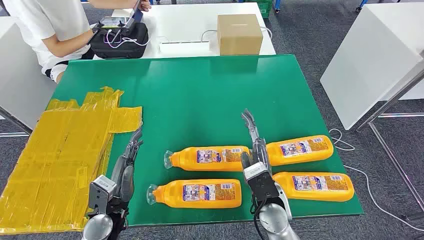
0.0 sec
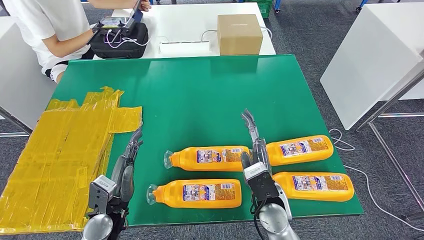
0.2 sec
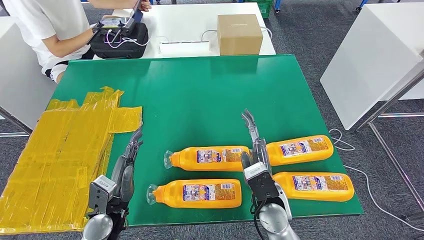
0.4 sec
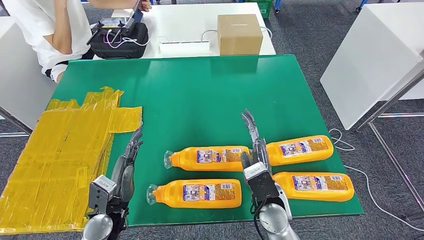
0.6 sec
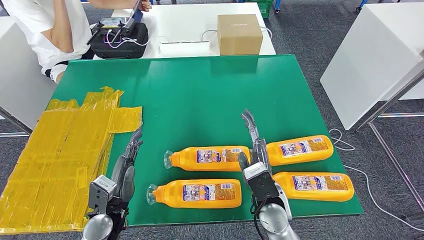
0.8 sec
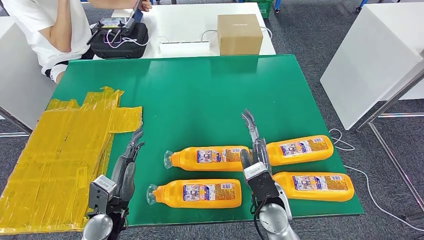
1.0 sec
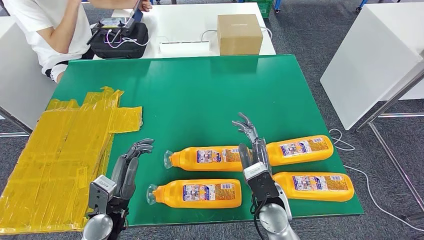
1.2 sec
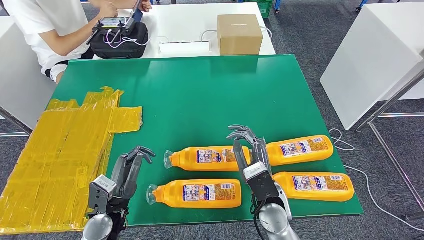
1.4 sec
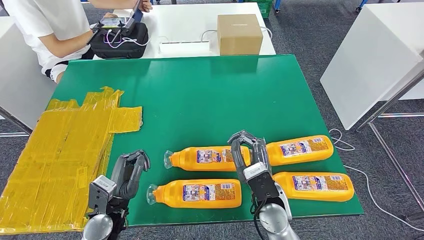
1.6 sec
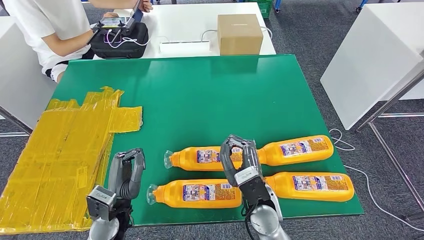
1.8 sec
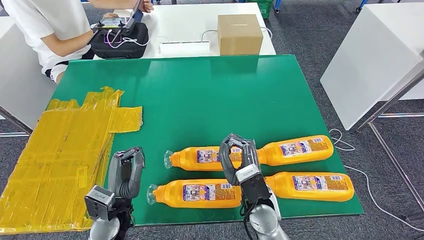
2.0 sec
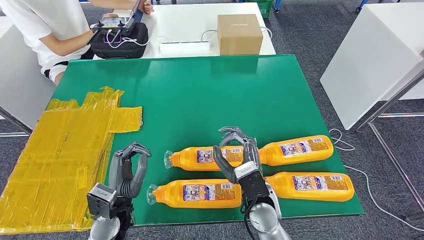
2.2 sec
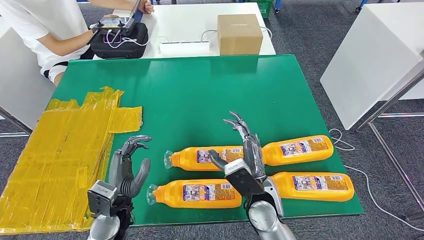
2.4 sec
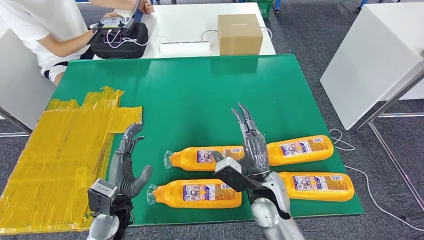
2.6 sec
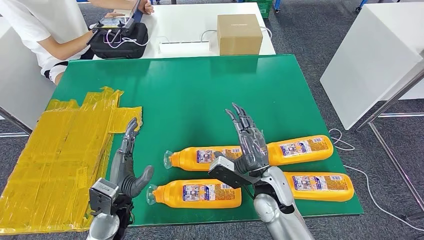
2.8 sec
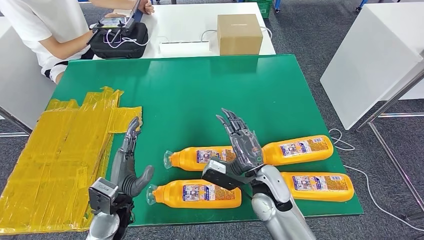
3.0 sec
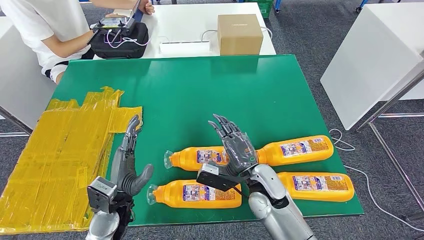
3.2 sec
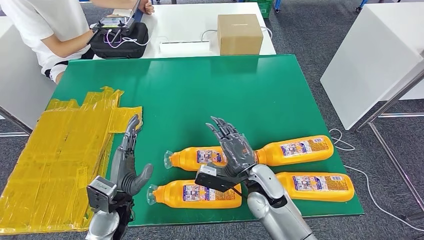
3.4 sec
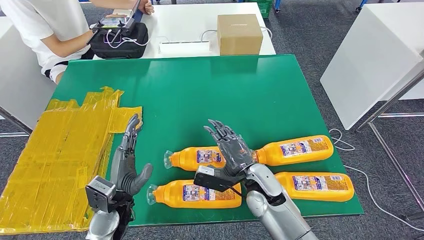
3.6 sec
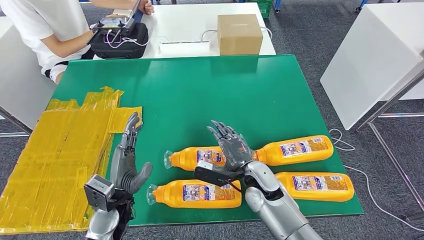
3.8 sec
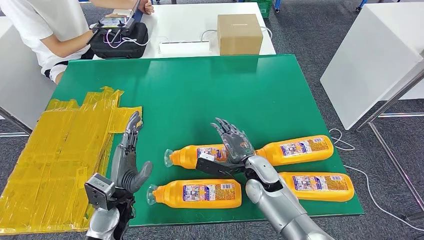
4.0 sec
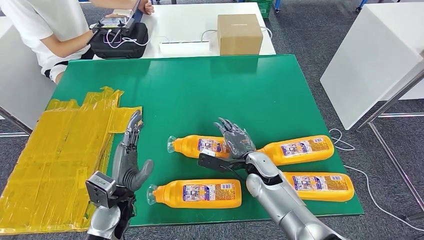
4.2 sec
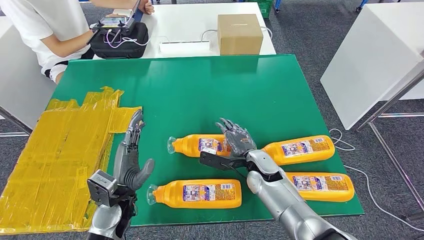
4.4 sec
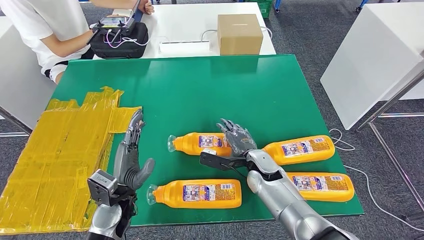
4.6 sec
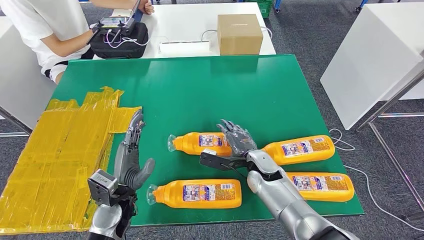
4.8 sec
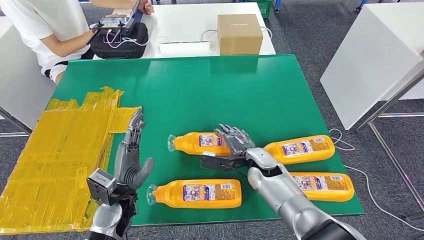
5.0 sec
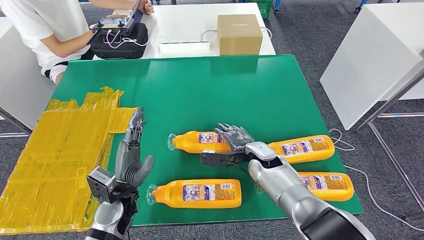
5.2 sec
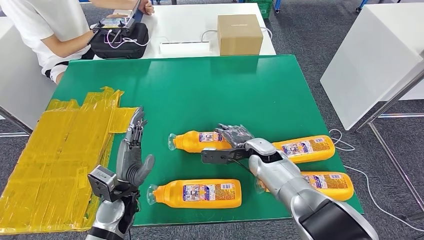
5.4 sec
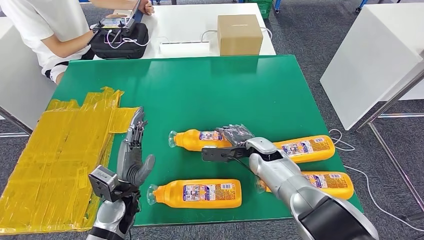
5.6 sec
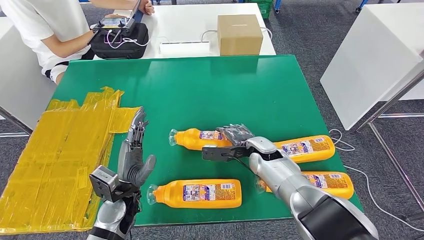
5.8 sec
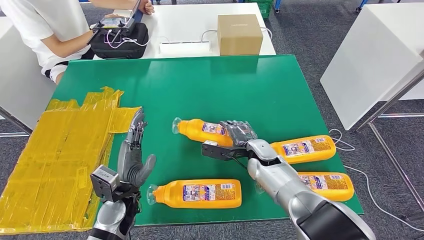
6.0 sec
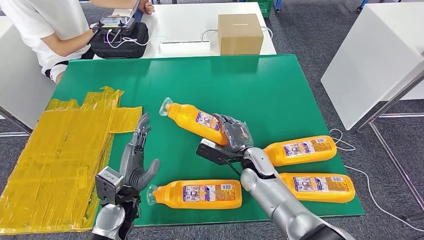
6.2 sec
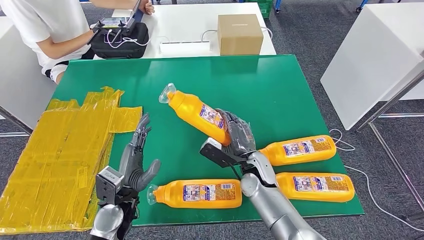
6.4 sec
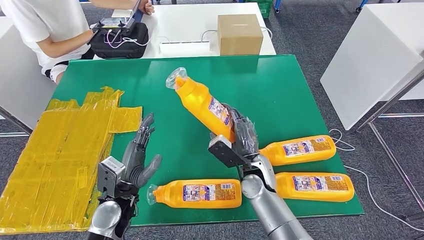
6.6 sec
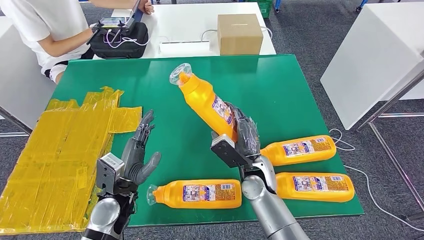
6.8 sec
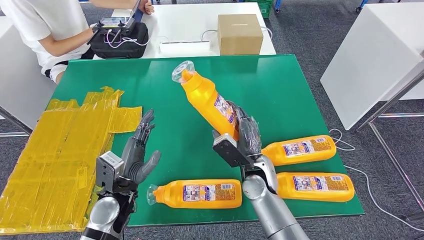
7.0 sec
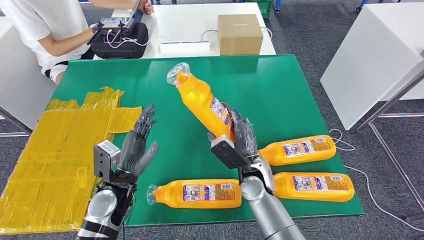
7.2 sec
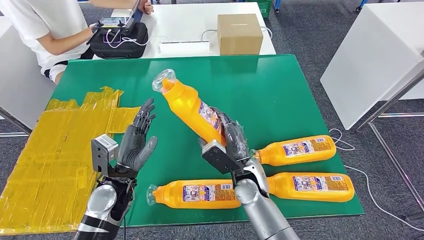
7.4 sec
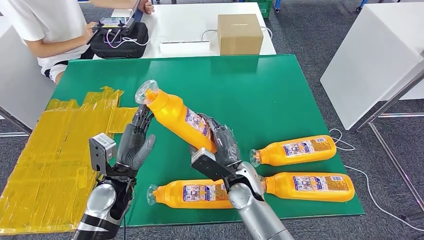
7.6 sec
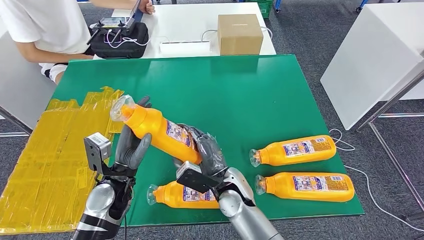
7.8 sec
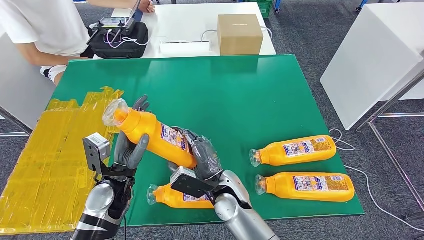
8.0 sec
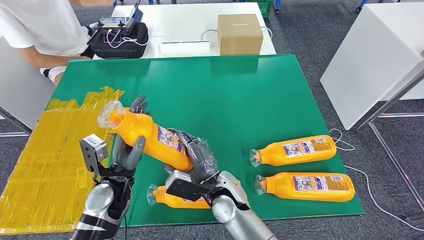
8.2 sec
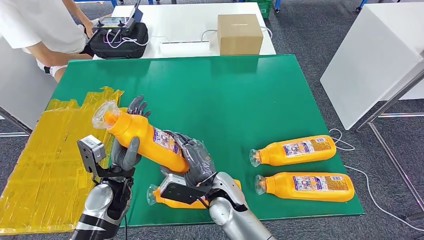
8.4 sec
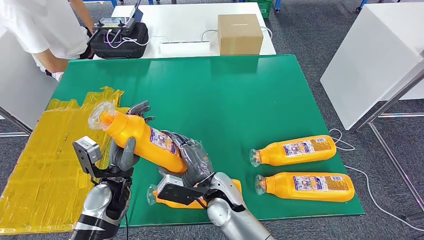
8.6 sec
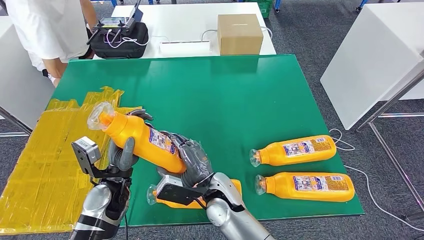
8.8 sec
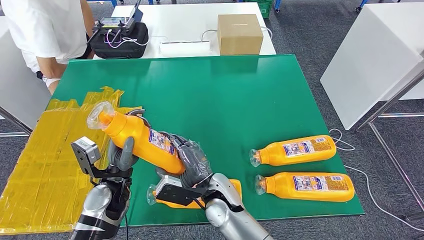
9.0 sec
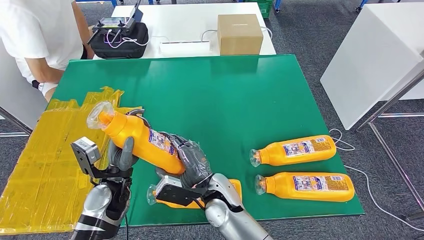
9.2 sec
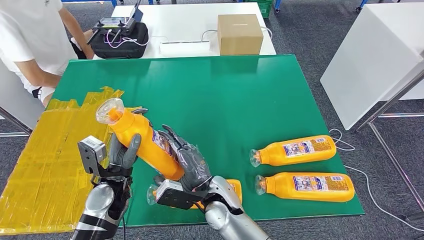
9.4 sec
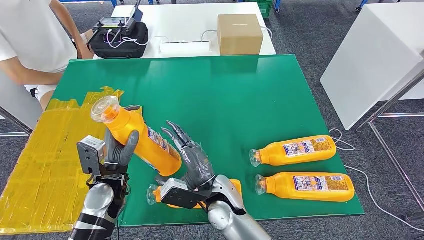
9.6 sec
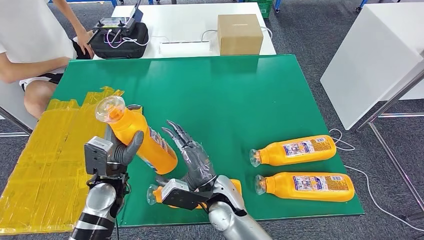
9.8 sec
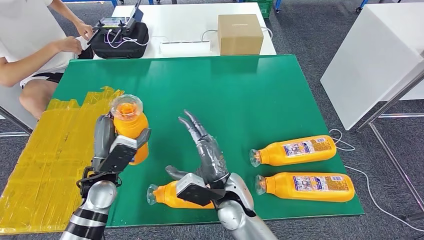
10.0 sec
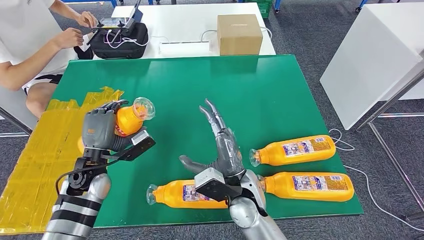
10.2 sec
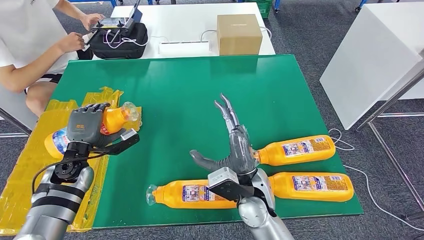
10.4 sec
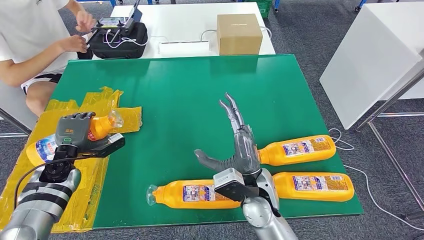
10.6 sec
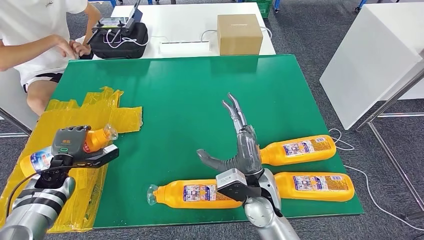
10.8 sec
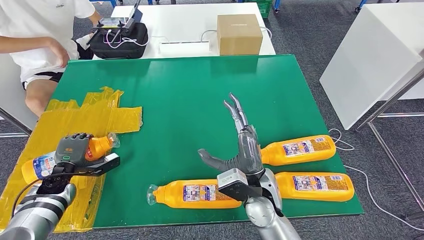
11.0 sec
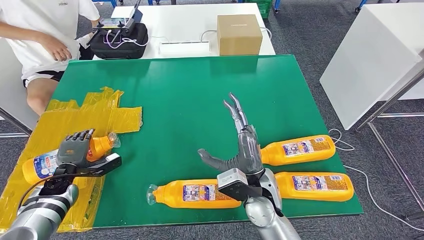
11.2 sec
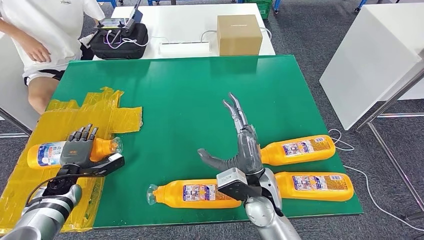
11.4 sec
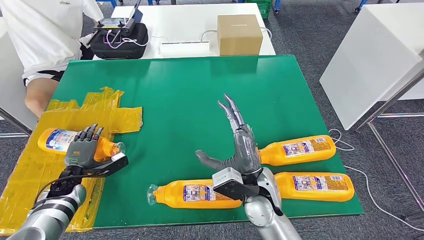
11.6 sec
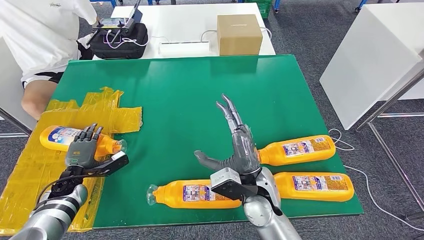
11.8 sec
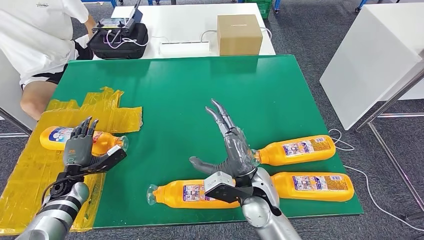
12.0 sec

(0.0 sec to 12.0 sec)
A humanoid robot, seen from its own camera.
Step, 0.0 sec - 8.2 sec: Take the bottle from the table.
3.0 sec - 4.4 sec: The right hand goes roughly 5 cm forward.
4.4 sec - 6.0 sec: The hands move only a little.
6.0 sec - 7.6 sec: The right hand is displaced backward and to the left by some 10 cm.
7.6 sec - 9.0 sec: The right hand heads to the left, covering about 5 cm.
10.4 sec - 12.0 sec: The left hand is displaced downward and to the left by roughly 10 cm.

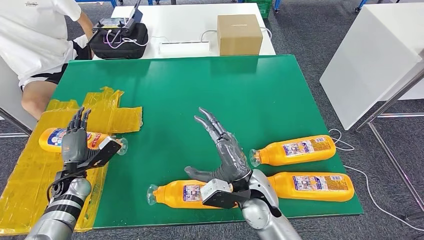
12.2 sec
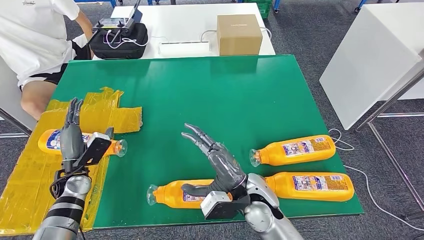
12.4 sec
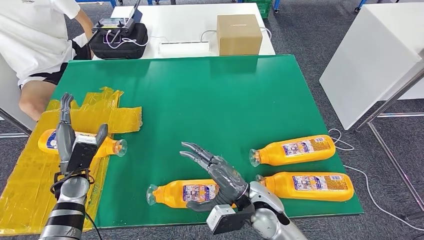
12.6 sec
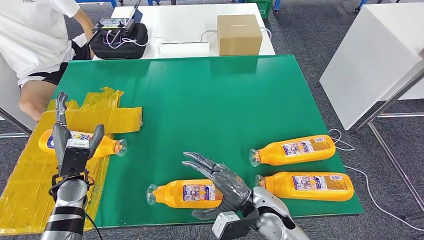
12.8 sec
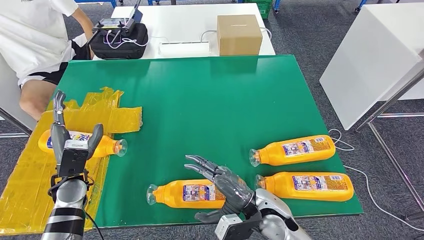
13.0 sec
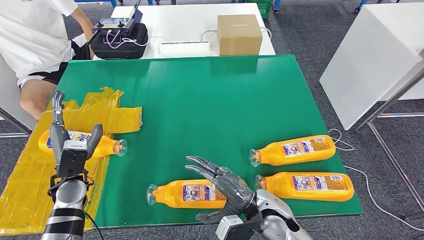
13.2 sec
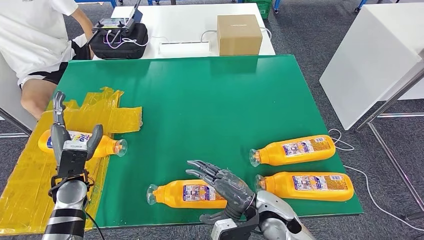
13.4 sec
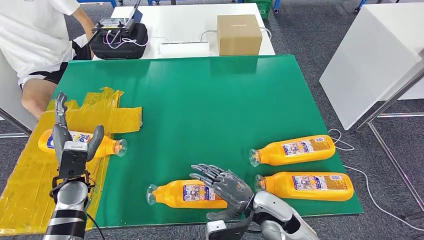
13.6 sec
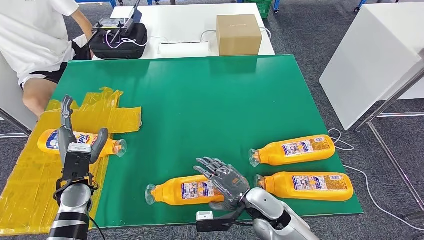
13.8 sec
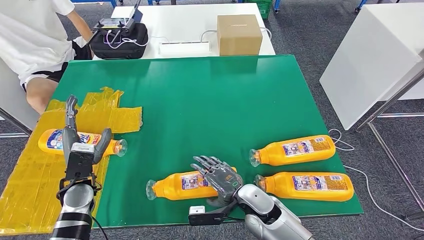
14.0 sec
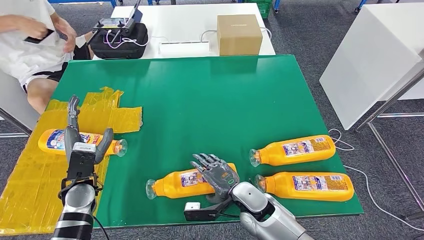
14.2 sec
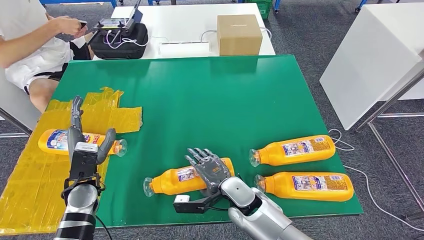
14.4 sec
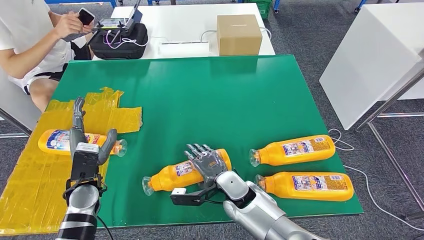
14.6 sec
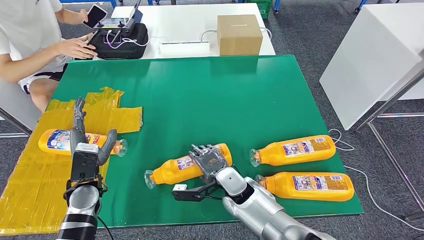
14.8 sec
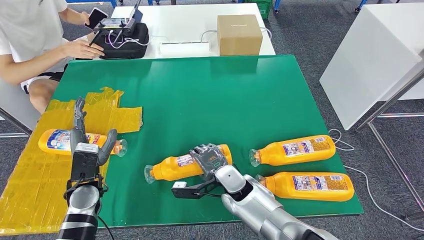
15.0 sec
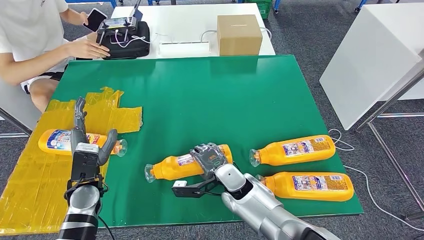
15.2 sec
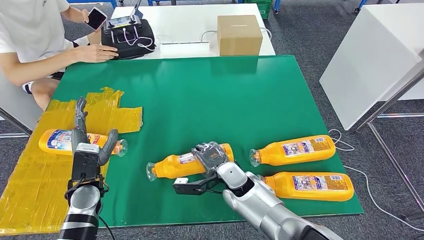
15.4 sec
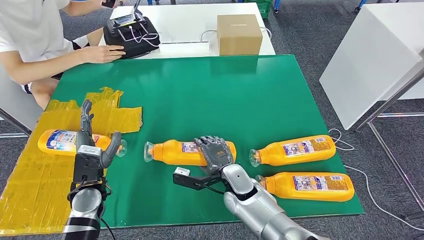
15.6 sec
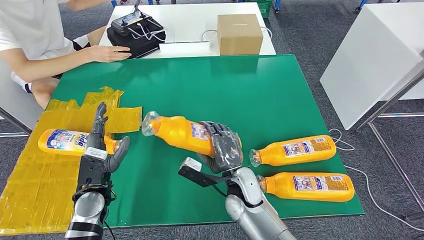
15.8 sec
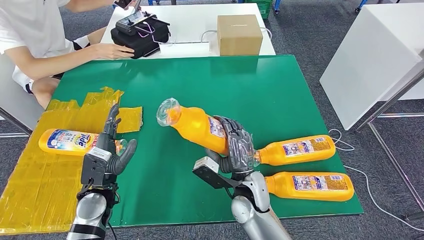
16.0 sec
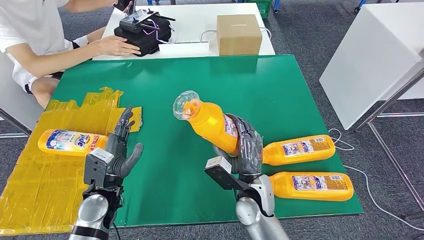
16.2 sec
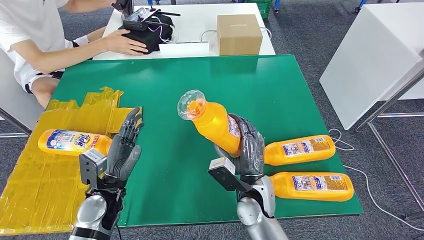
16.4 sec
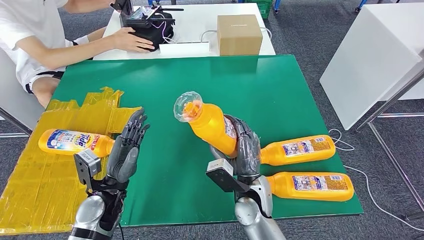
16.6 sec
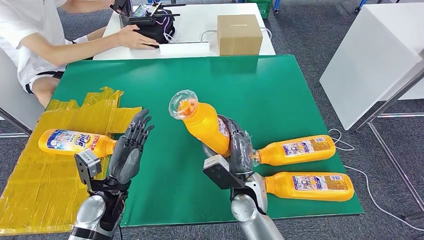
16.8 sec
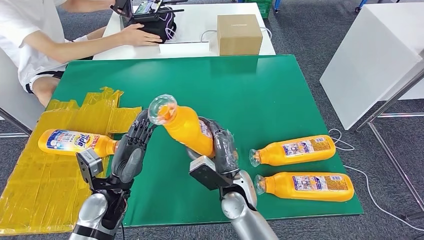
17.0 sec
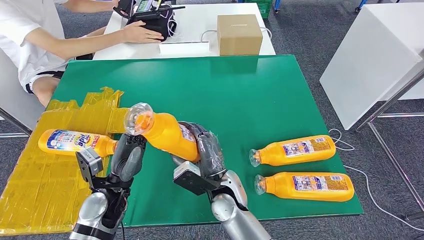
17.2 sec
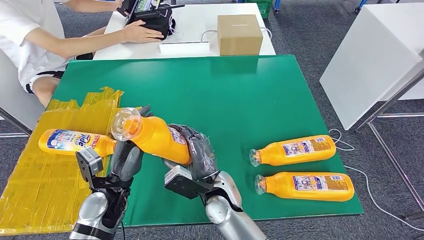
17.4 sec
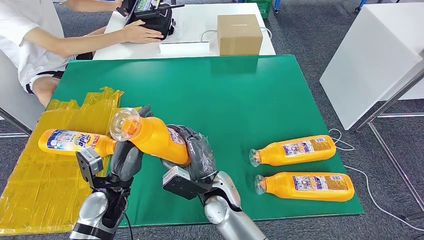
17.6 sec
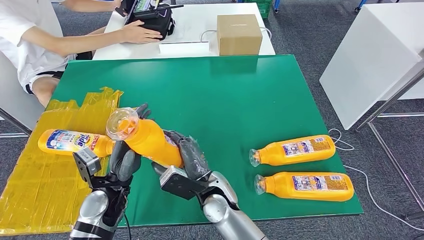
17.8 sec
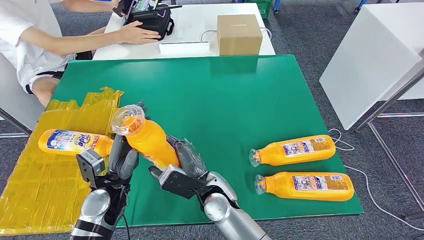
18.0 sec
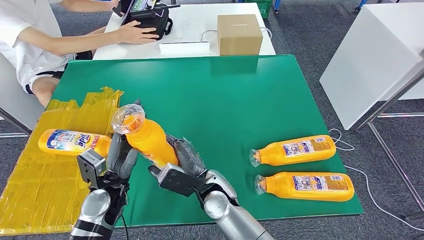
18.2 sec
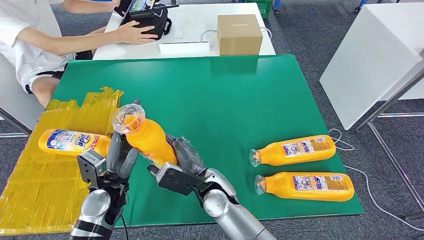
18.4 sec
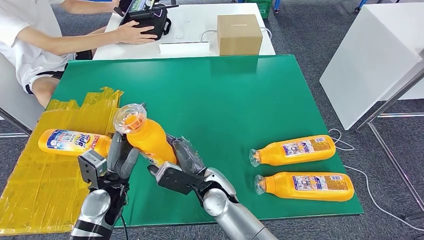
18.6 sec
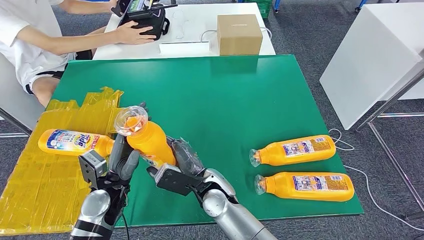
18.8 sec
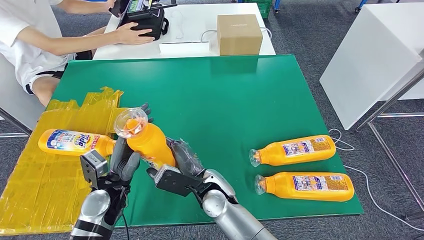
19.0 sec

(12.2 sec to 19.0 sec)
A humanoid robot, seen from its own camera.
Step, 13.0 sec - 17.4 sec: Pick up the bottle from the table.
12.2 sec - 13.6 sec: The right hand moves downward, roughly 5 cm, while the left hand heads upward and to the right, covering some 10 cm.
13.6 sec - 15.0 sec: The right hand goes roughly 10 cm to the left and forward.
